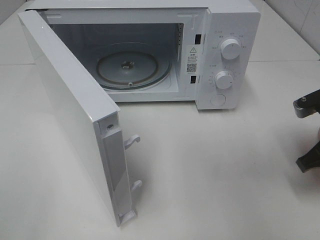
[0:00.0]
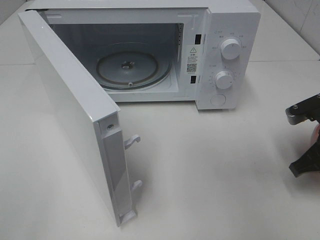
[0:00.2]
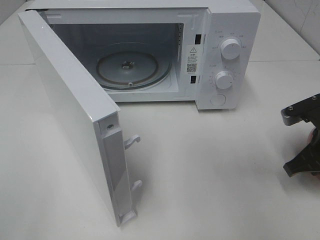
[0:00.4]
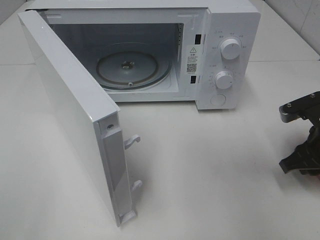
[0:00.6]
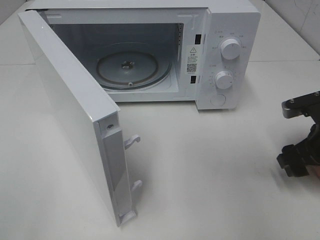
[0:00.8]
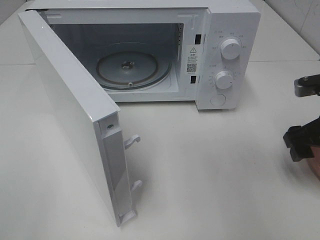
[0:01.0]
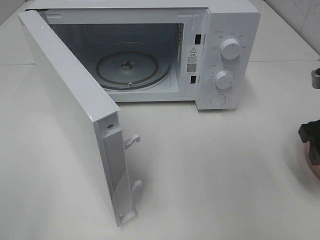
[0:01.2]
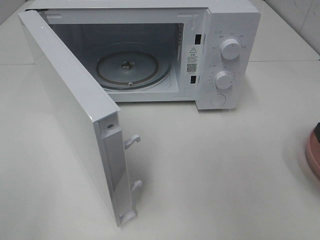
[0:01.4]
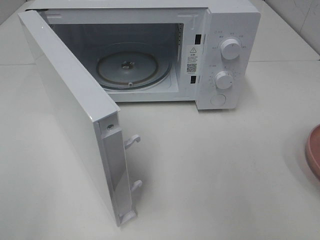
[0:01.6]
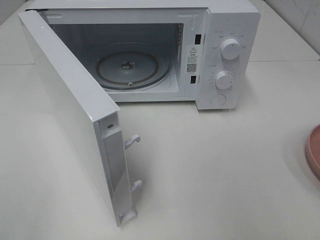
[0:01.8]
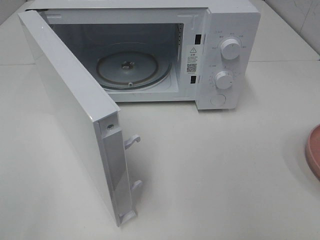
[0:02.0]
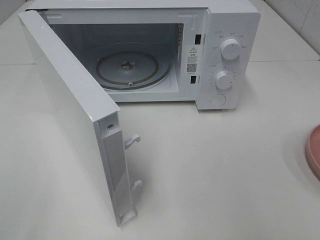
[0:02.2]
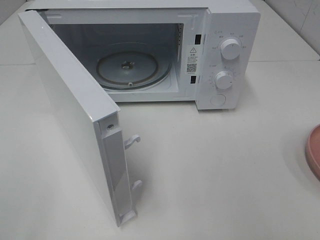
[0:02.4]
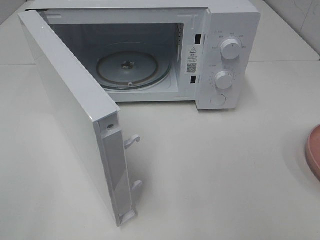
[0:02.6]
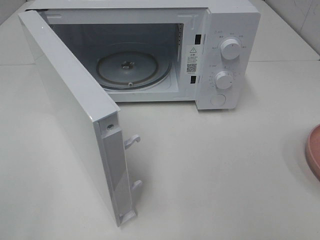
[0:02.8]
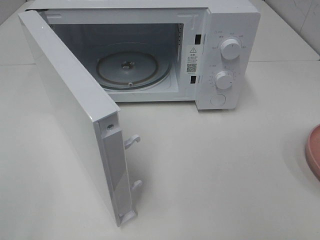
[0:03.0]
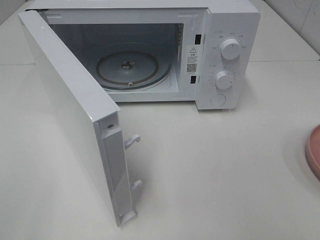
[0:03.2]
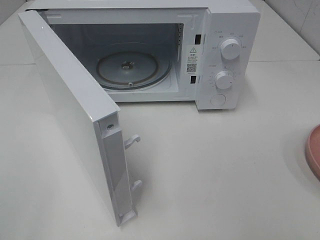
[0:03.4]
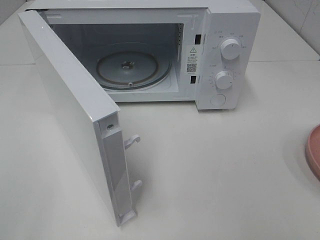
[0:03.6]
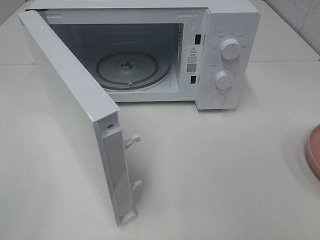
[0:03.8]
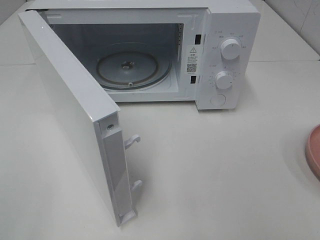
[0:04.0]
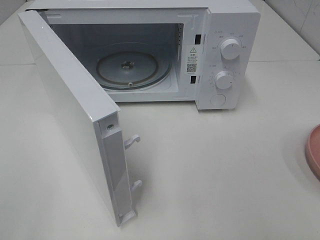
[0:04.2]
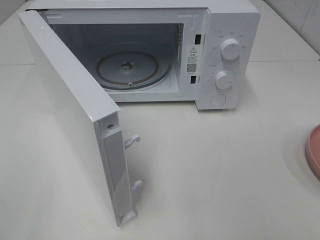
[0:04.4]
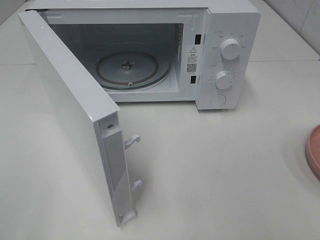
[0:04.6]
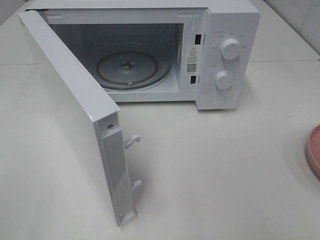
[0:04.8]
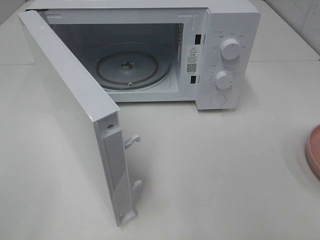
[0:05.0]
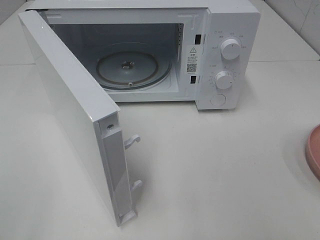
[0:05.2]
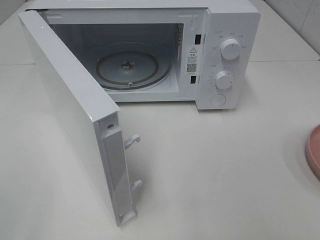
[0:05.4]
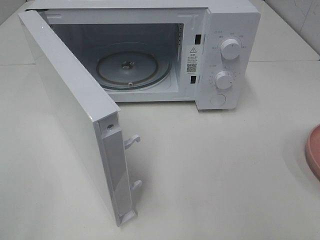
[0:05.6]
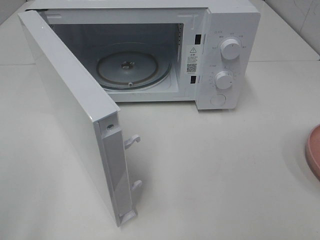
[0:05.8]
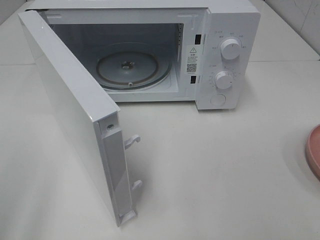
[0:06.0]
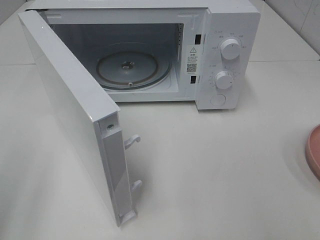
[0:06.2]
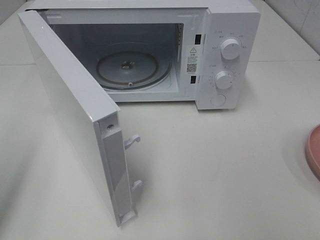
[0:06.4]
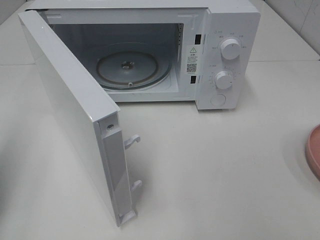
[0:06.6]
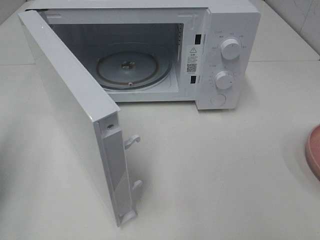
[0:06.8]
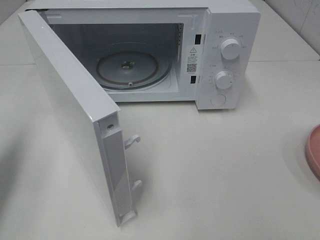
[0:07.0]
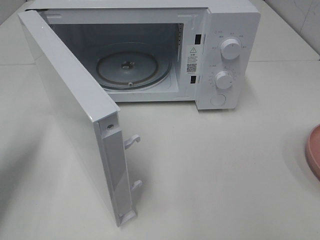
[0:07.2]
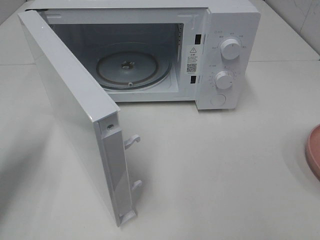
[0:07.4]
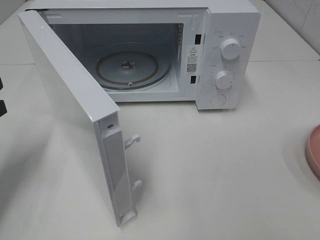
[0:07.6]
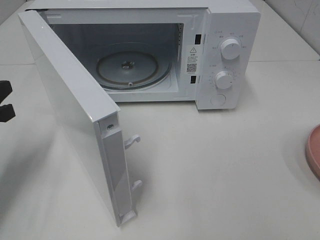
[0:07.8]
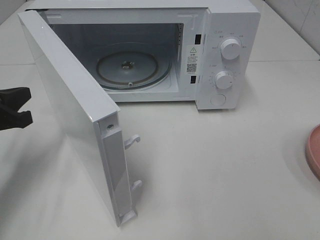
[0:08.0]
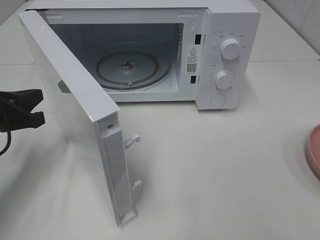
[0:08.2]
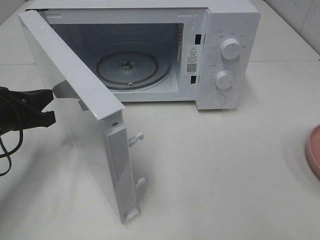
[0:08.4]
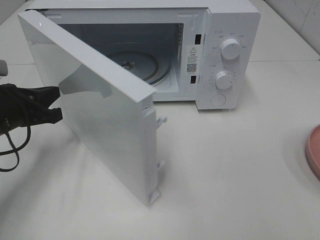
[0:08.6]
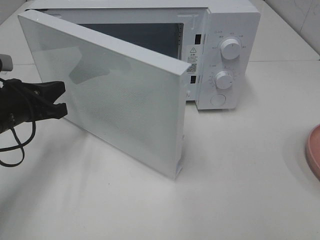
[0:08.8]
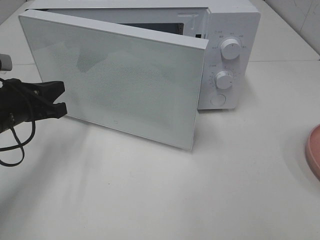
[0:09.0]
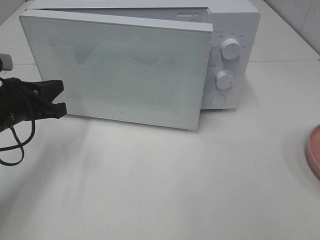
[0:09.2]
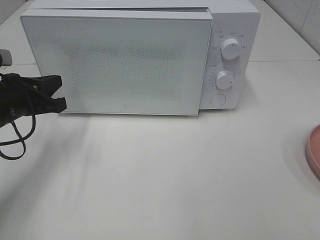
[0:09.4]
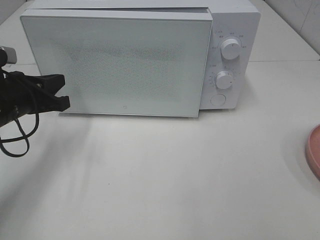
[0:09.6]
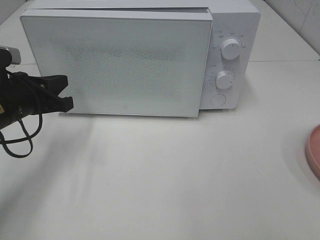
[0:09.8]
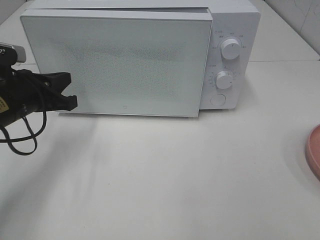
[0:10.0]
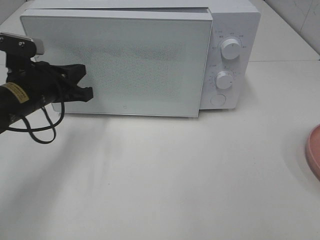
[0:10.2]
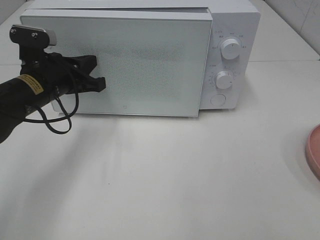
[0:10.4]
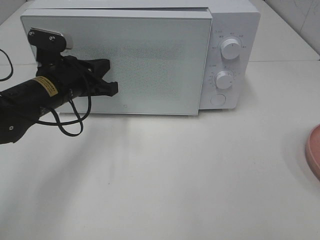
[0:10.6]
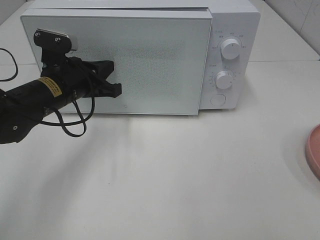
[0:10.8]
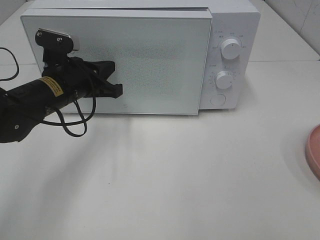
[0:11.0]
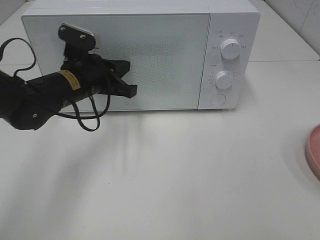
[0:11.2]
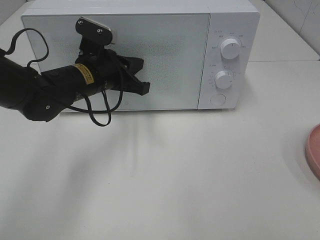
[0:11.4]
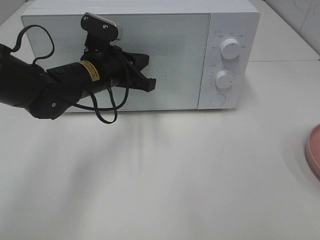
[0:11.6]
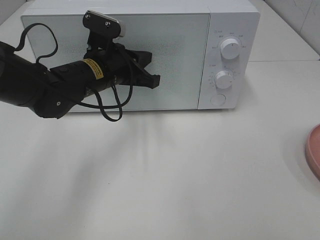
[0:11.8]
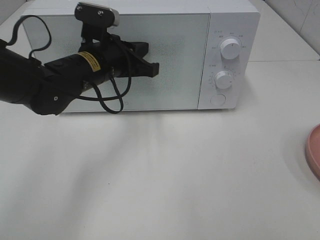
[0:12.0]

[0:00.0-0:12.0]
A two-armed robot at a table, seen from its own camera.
Task of the whole recording: Heat the burger.
Step, 0:00.8 to 0:11.2: Left hand: close the microwave door.
0:00.0 to 0:01.6: The right gripper is displaced upward and backward by some 10 cm, and opens up.
0:06.0 to 0:07.6: The left gripper heads forward and downward, covering roughly 25 cm, and closes.
0:07.6 to 0:09.0: The left gripper moves to the right, some 5 cm.
0:09.0 to 0:10.4: The left gripper is displaced to the right by approximately 5 cm.
0:10.4 to 0:12.0: The left gripper shifts about 10 cm to the right.

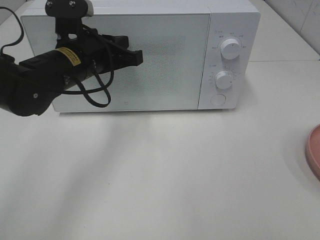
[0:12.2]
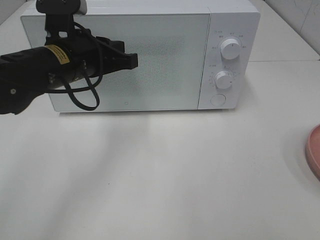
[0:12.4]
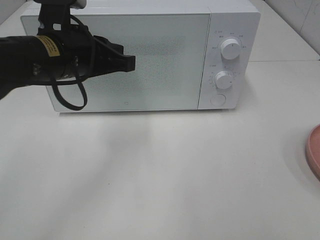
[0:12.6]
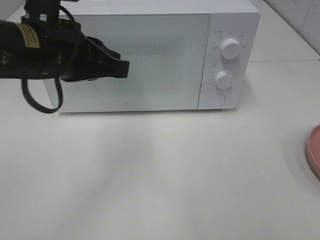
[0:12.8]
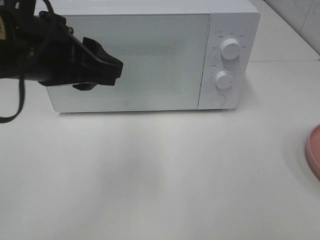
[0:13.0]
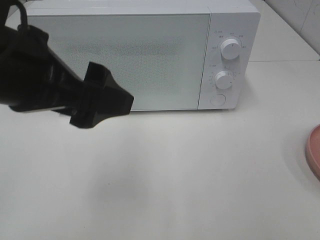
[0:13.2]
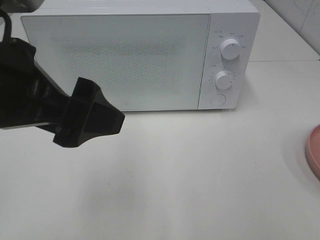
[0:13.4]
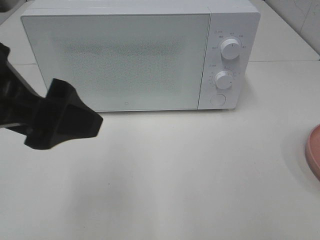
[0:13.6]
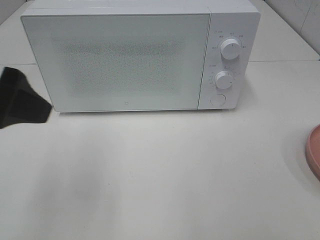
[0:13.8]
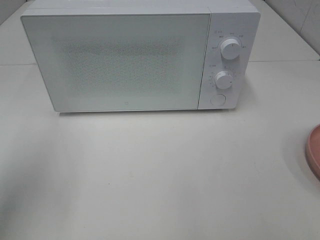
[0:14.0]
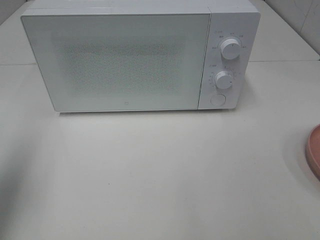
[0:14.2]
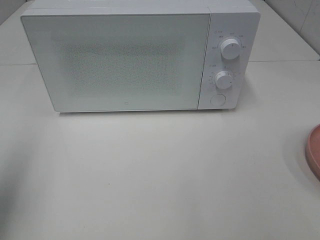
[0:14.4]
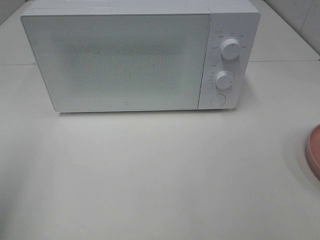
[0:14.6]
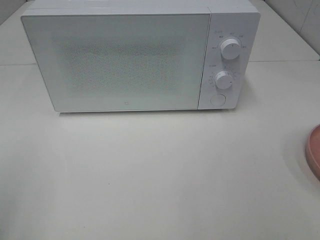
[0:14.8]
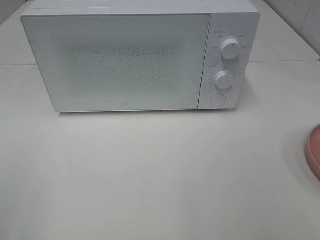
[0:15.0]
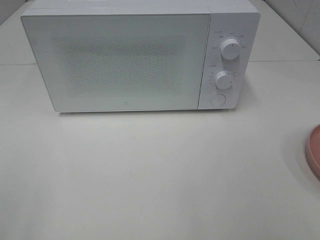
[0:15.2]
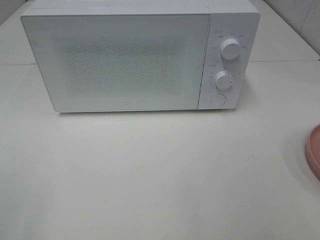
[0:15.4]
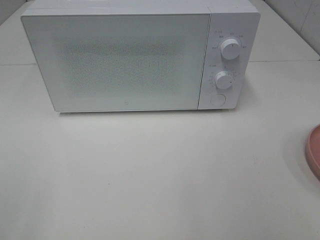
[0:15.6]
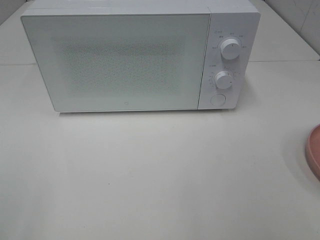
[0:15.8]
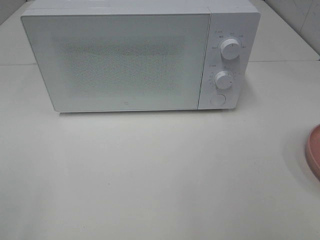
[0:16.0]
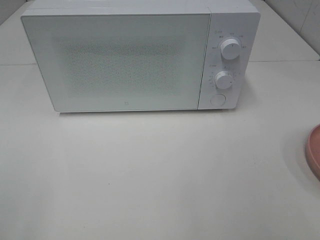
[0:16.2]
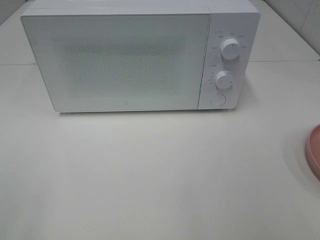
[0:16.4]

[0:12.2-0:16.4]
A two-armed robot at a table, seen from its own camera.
Task of the whole recording: Heat the burger.
0:12.2 to 0:13.6: The left gripper moves backward and upward, roughly 20 cm, and opens its fingers.
0:13.6 to 0:15.0: The left gripper moves to the left and backward, approximately 20 cm.
